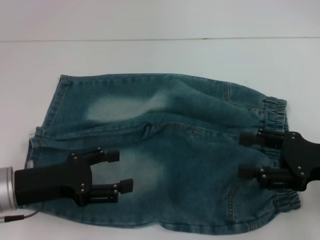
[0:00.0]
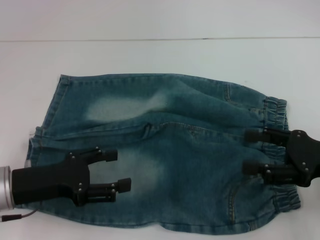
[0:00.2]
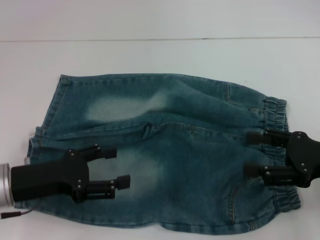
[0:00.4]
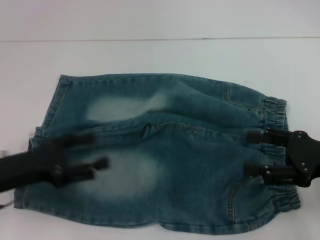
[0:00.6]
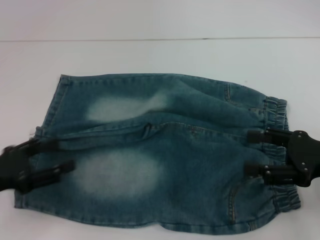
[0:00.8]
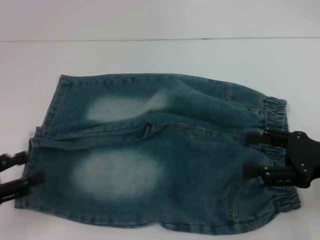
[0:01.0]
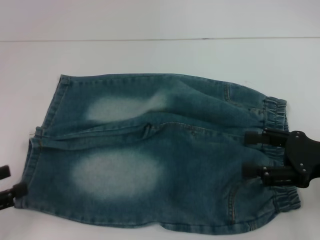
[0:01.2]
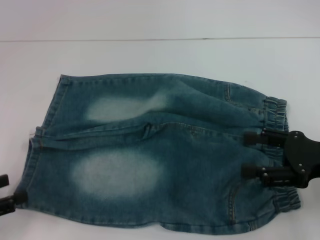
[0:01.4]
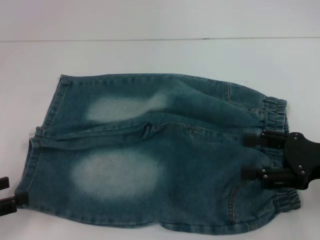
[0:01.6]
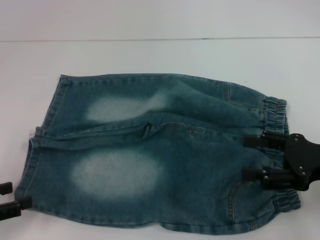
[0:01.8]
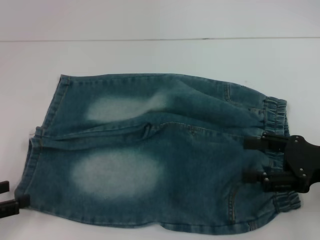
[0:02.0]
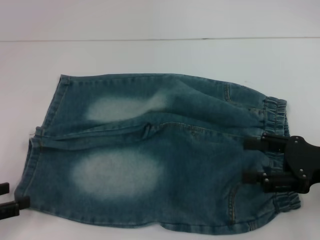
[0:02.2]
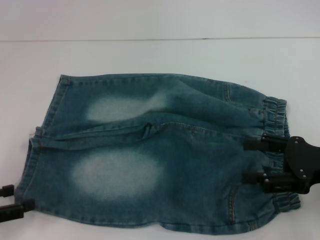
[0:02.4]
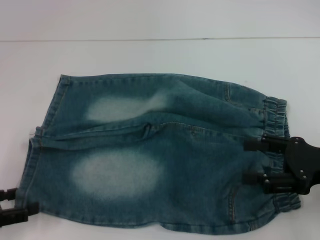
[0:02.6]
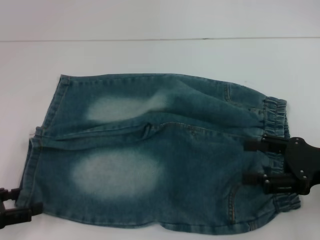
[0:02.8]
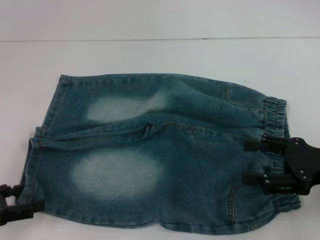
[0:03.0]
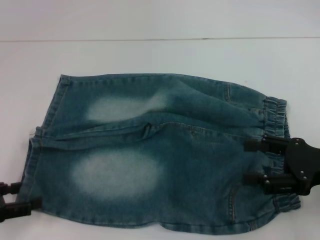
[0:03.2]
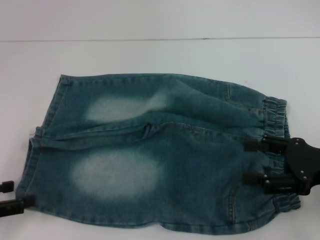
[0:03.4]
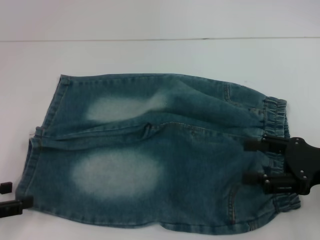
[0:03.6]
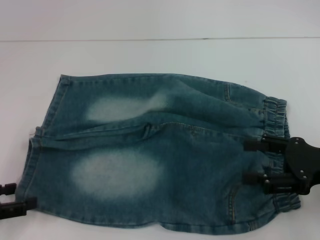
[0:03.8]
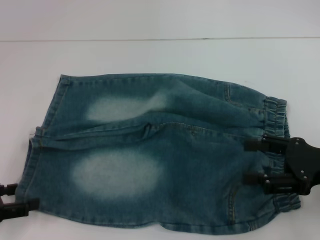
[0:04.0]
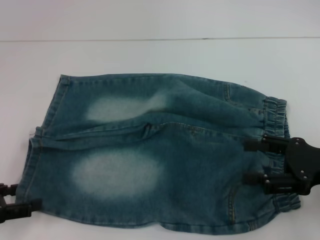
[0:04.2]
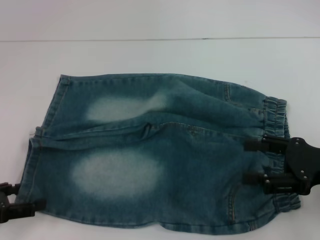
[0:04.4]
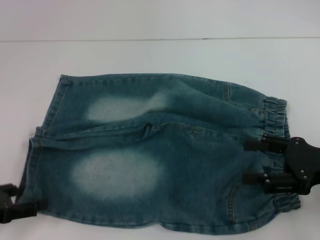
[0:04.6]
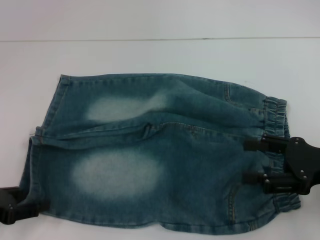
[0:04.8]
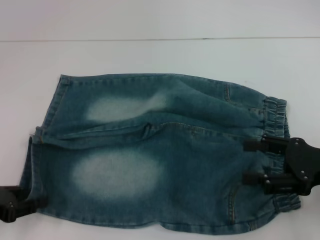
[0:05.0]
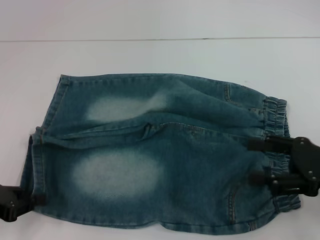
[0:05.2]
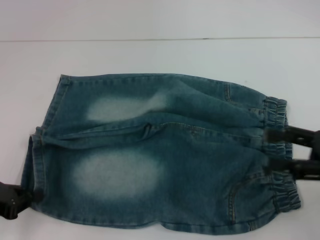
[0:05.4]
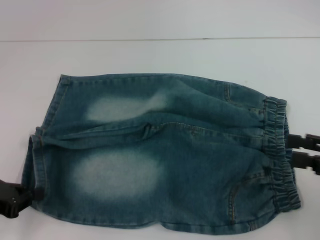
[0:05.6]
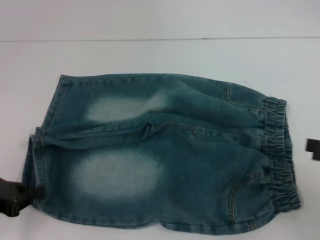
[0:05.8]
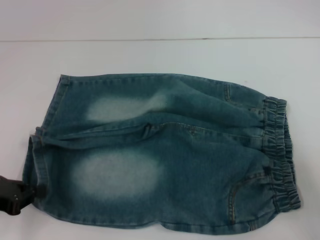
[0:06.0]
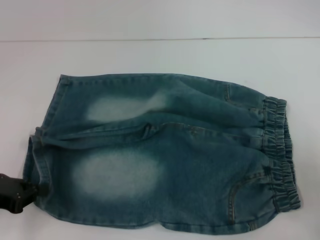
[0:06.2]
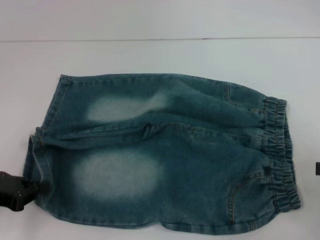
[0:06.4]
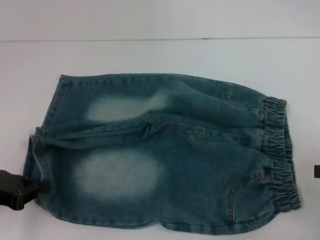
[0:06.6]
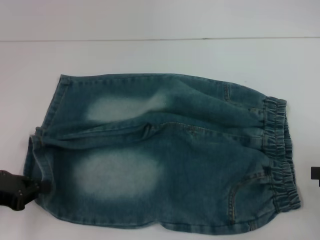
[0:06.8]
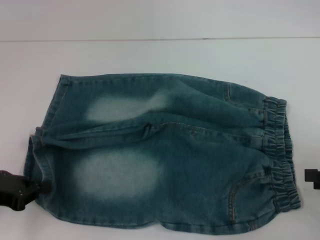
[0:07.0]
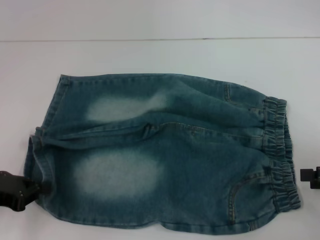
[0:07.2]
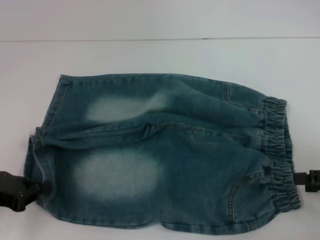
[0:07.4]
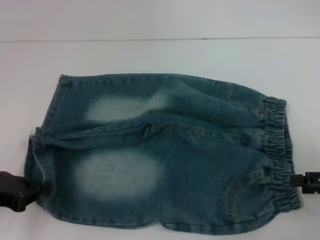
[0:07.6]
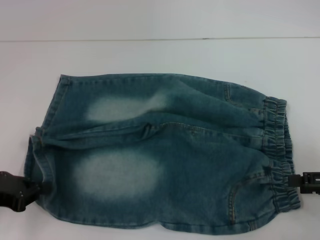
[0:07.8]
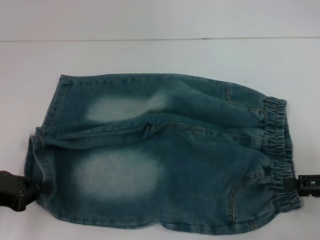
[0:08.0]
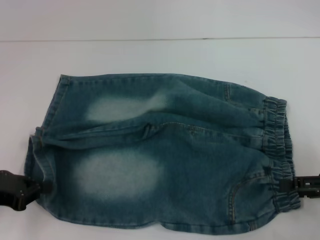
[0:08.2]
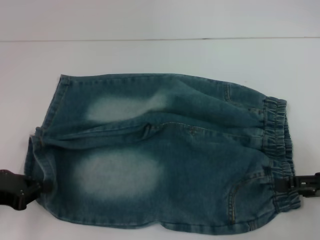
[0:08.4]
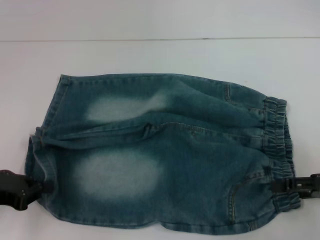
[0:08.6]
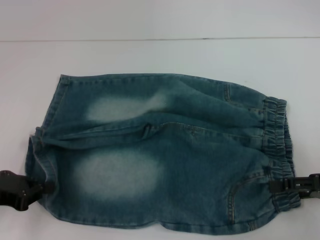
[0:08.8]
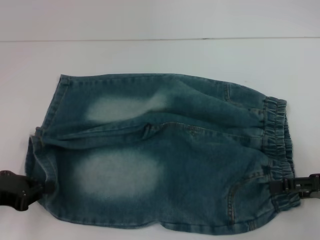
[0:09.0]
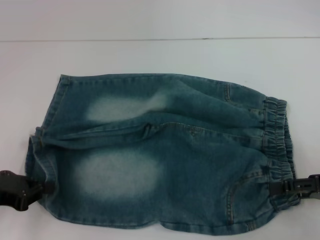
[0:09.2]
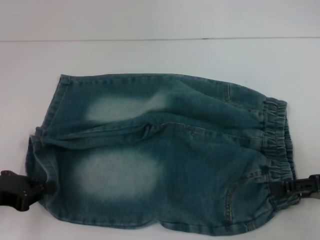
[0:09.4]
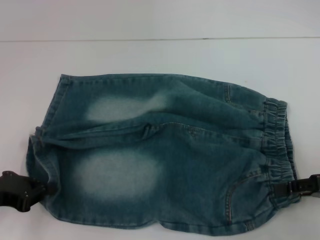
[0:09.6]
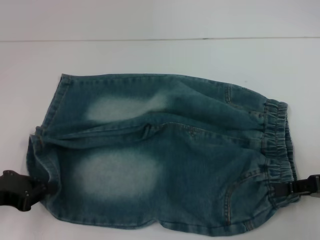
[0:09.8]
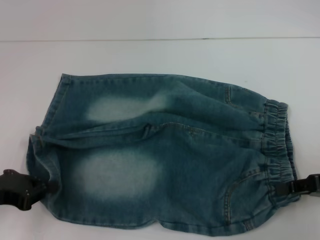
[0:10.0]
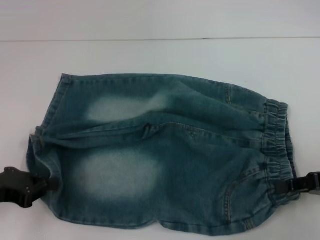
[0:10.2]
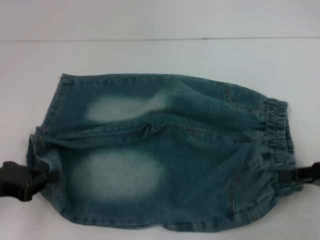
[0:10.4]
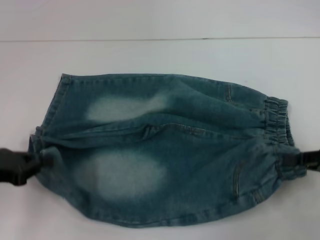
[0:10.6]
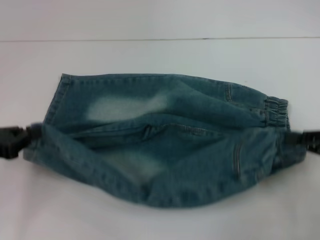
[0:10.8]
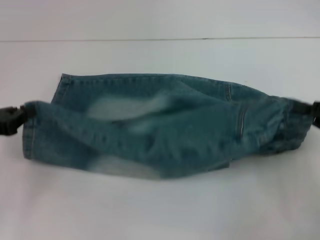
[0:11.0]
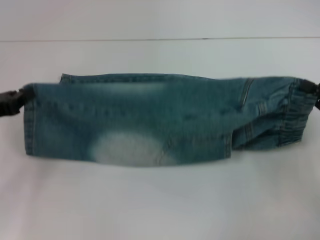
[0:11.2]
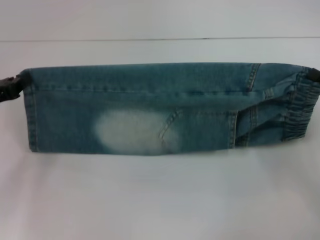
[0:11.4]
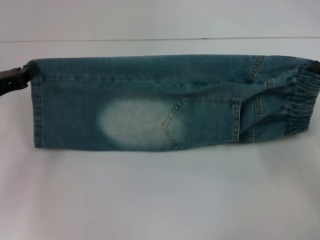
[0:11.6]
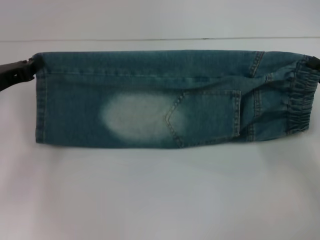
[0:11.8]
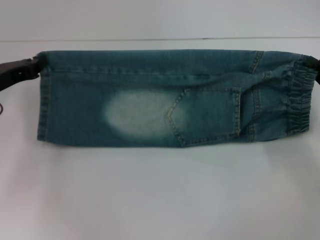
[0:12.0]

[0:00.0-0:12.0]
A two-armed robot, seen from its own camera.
Step, 0:00.0 to 0:04.8: Grab the lower left pant leg with your left hand.
Step, 0:05.0 to 0:10.0: Hold the lower right waistband with your right hand.
0:00.0 to 0:01.6: The left gripper moves to the left and backward, roughly 15 cm.
0:01.6 to 0:03.0: The grippers make only small movements.
0:03.0 to 0:04.4: Neither gripper changes place.
0:04.4 to 0:06.0: The left gripper closes up. Meanwhile the right gripper travels to the right by some 10 cm.
0:06.0 to 0:07.6: The right gripper changes place by about 5 cm.
0:07.6 to 0:09.0: The grippers stay close to where they were, moving slightly.
0:09.0 to 0:10.4: The right gripper closes its fingers.
0:10.4 to 0:12.0: The right gripper heads forward, covering approximately 5 cm. The left gripper shifts roughly 10 cm forward.

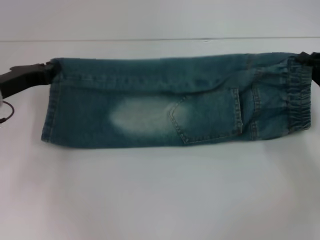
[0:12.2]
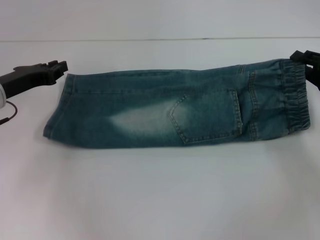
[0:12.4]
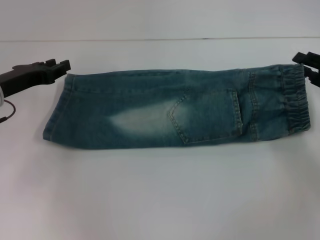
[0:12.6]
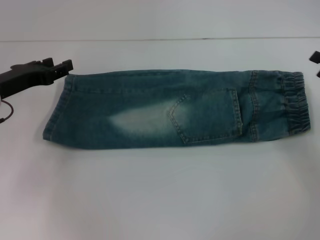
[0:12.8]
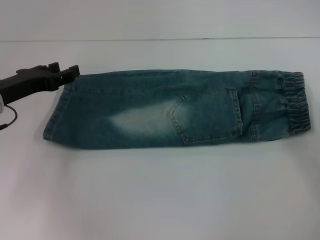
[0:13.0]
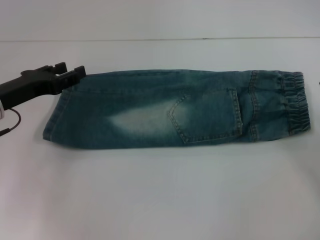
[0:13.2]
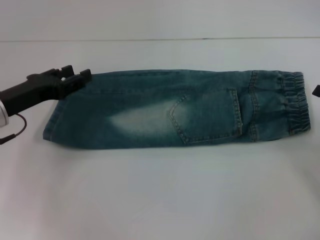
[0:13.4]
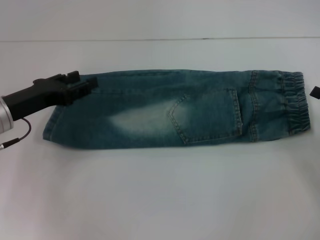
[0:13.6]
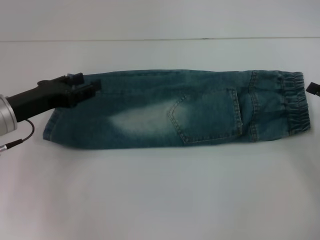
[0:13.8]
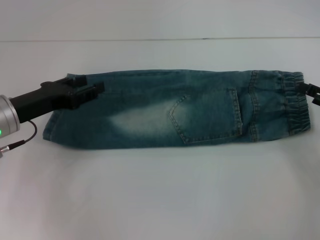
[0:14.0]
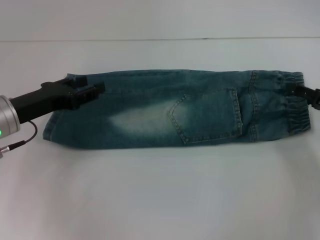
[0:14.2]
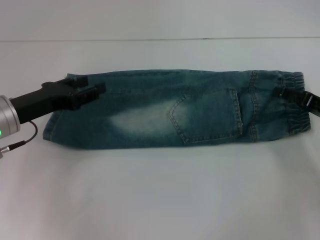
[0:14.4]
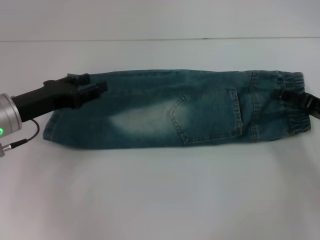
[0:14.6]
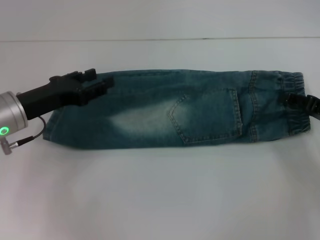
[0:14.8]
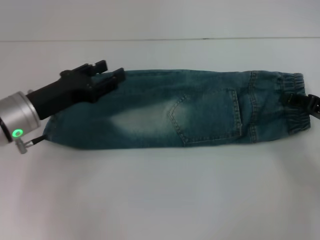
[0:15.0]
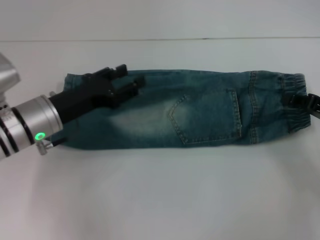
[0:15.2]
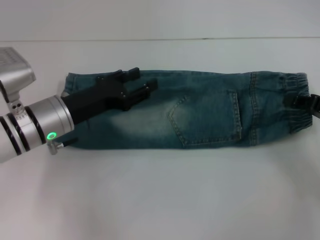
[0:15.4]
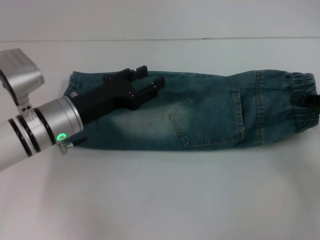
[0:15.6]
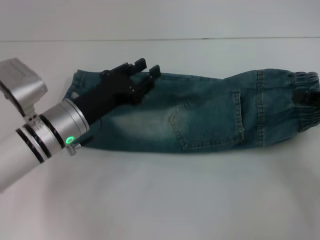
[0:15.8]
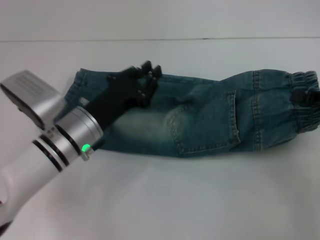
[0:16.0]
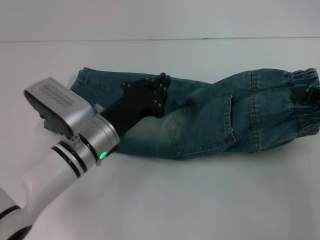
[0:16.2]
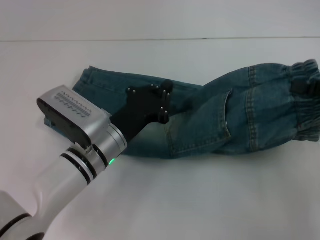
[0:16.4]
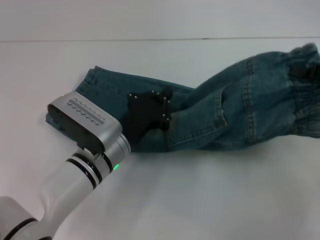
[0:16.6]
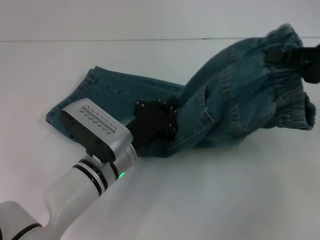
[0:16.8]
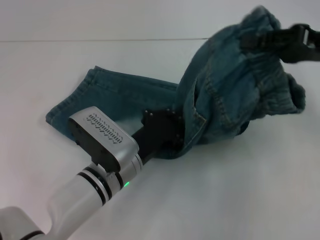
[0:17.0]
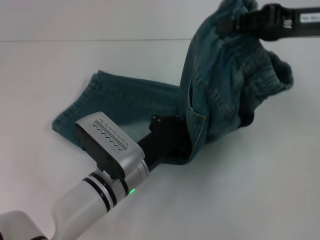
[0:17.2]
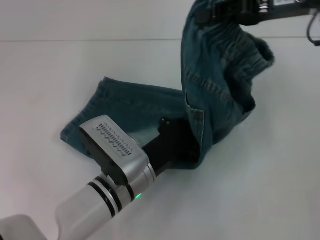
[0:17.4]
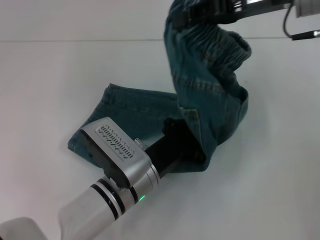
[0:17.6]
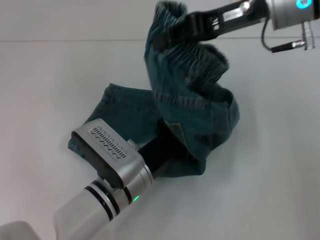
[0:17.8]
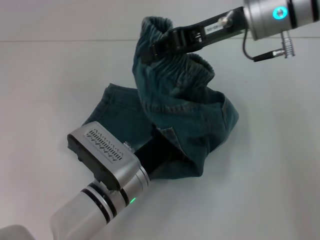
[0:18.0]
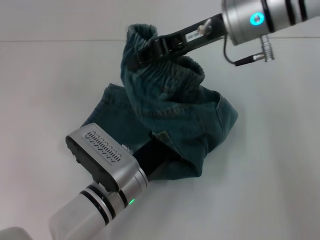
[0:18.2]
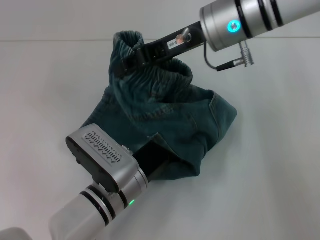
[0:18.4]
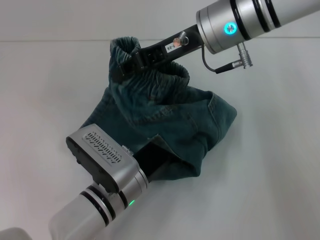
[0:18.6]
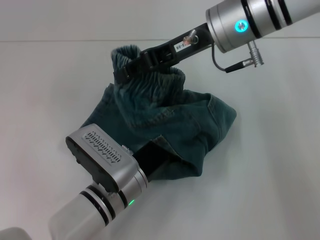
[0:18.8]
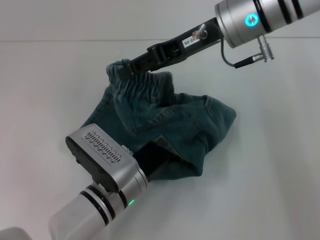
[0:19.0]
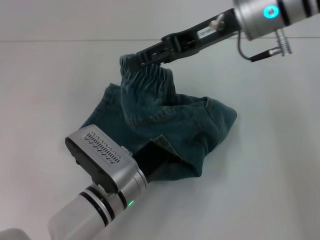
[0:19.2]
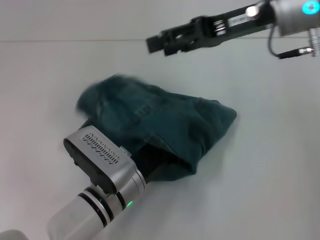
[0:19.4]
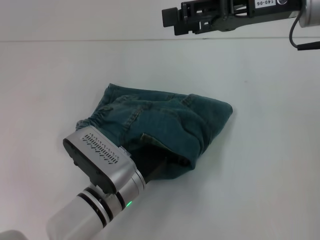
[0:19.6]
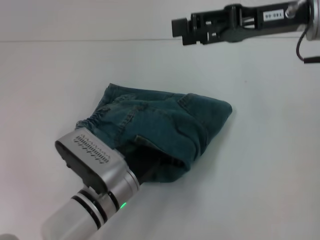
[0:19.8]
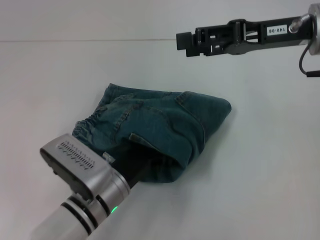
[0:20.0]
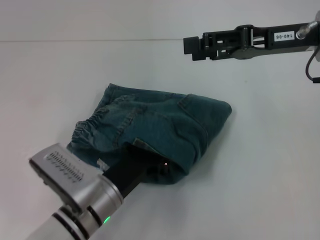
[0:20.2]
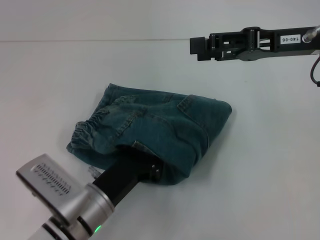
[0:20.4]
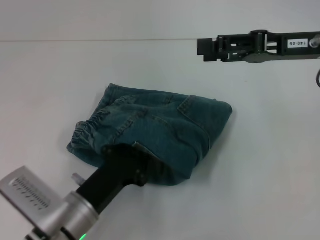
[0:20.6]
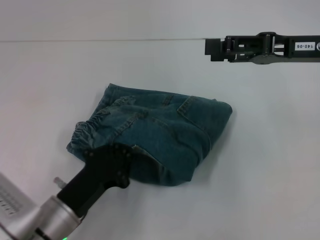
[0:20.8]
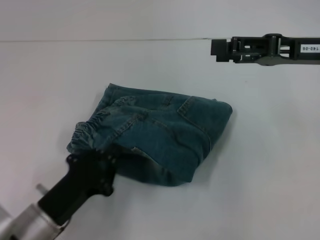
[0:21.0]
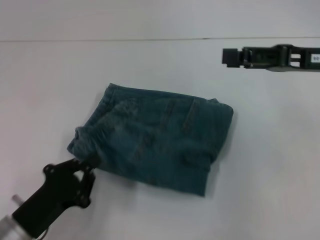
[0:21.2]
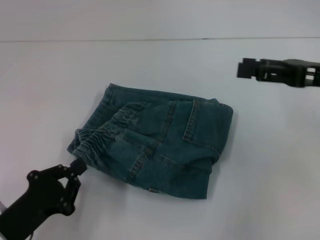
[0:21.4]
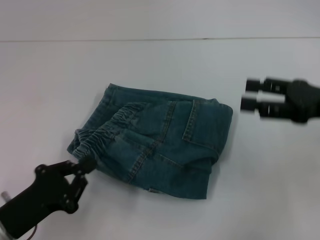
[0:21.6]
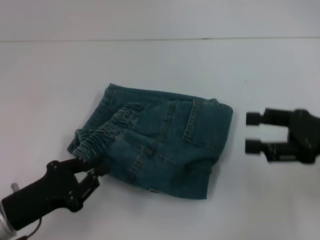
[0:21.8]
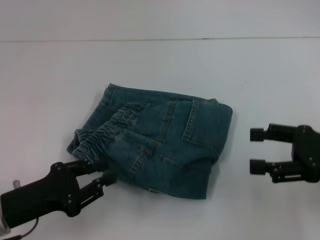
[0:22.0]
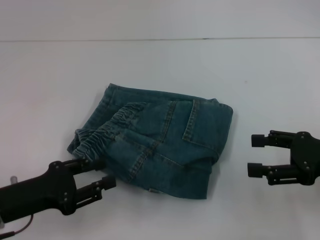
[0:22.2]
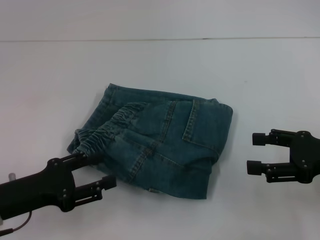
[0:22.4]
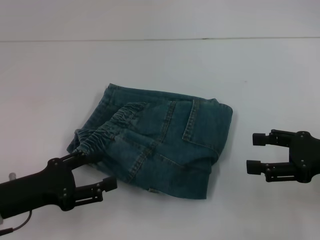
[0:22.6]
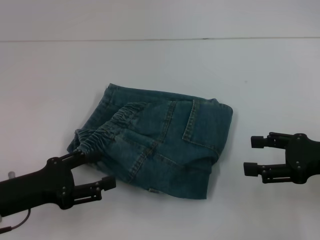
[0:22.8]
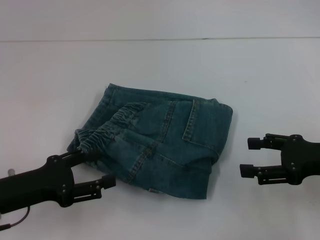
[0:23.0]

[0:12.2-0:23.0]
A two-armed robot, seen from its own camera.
Step, 0:12.8 to 0:15.0: Grab the waistband with your right hand.
Step, 0:15.2 to 0:20.2: Fold to the left with your right hand.
0:12.2 to 0:13.8: The right gripper moves roughly 5 cm, and opens its fingers, while the left gripper opens up.
0:13.8 to 0:15.2: The right gripper closes. The left gripper goes approximately 5 cm to the right.
0:15.2 to 0:16.8: The right gripper travels upward by roughly 10 cm, while the left gripper shifts approximately 10 cm to the right and downward, and closes up.
0:16.8 to 0:18.4: The right gripper shifts approximately 25 cm to the left and forward.
0:18.4 to 0:20.0: The right gripper goes roughly 10 cm to the right, and opens.
0:20.0 to 0:21.4: The right gripper heads to the right, backward and downward, covering approximately 10 cm, while the left gripper goes some 15 cm to the left and backward.
0:21.4 to 0:23.0: The right gripper heads downward and backward, covering about 10 cm, while the left gripper heads forward and upward, covering some 10 cm, and opens.
